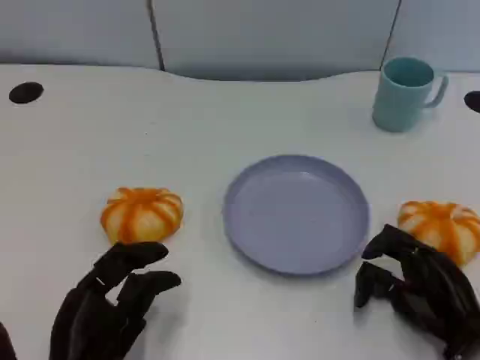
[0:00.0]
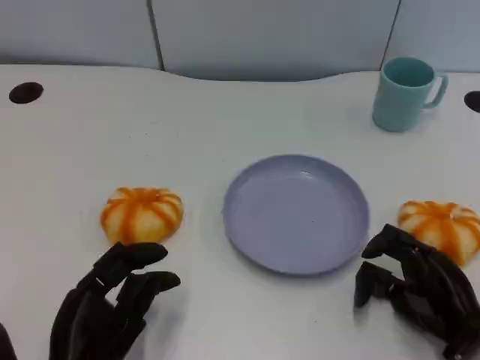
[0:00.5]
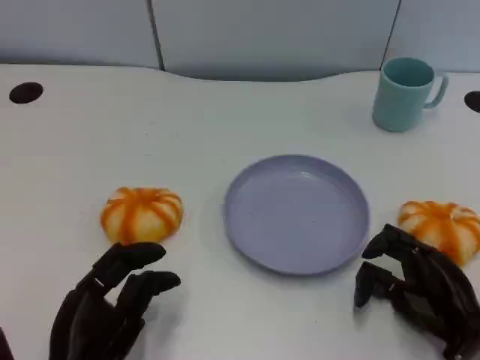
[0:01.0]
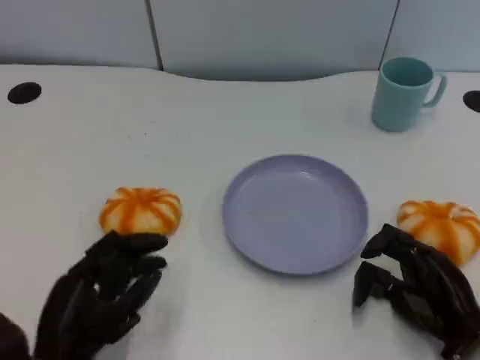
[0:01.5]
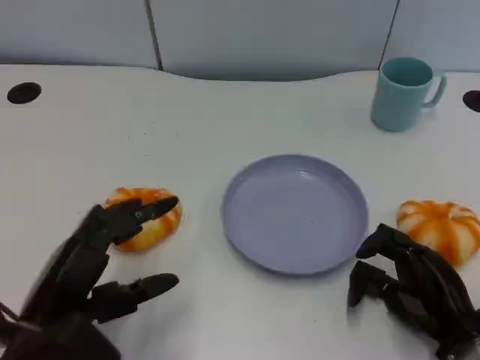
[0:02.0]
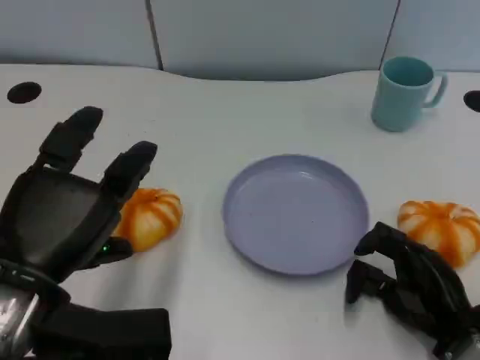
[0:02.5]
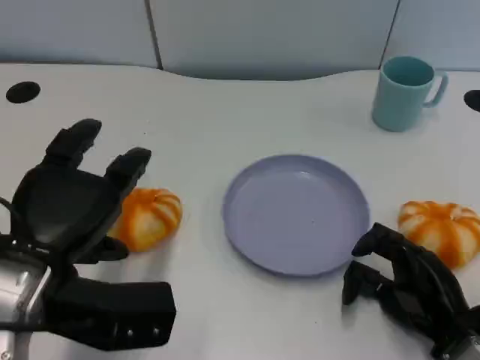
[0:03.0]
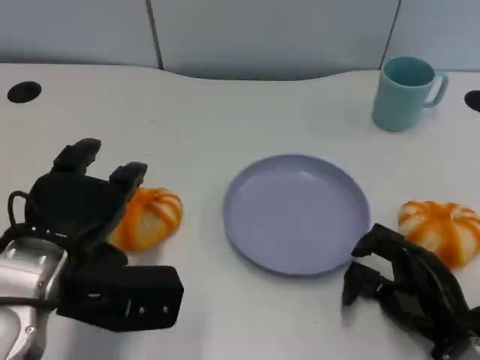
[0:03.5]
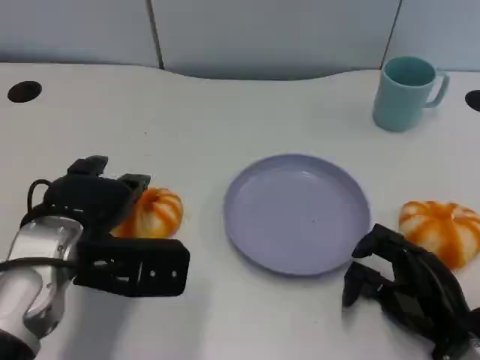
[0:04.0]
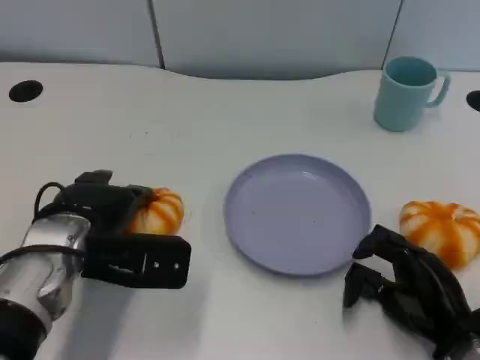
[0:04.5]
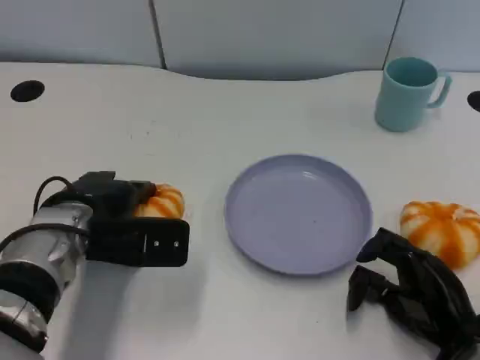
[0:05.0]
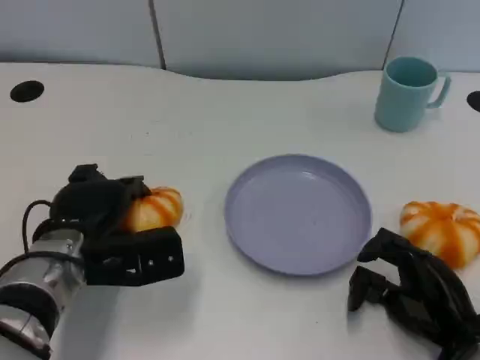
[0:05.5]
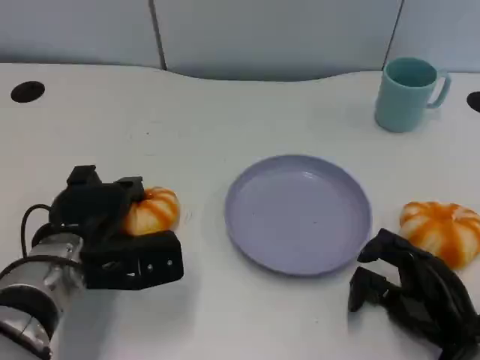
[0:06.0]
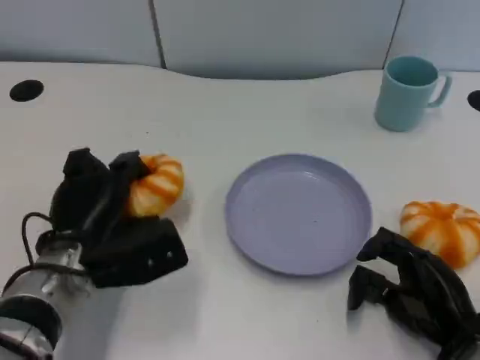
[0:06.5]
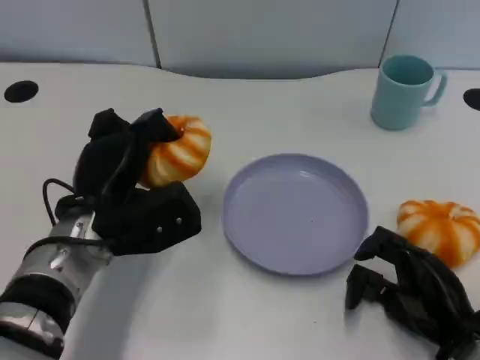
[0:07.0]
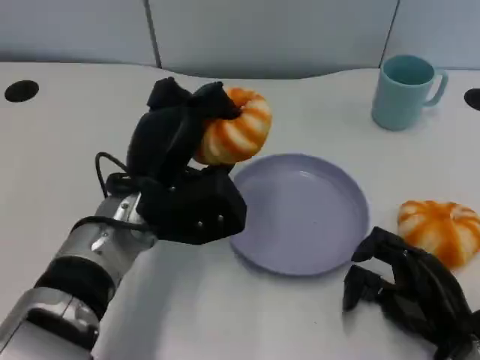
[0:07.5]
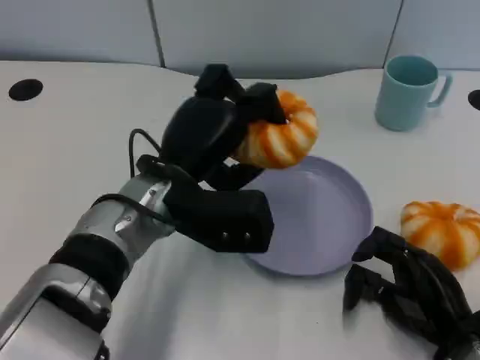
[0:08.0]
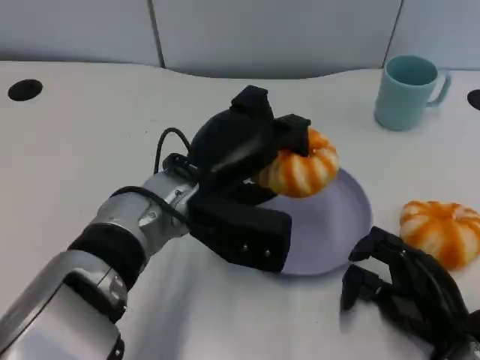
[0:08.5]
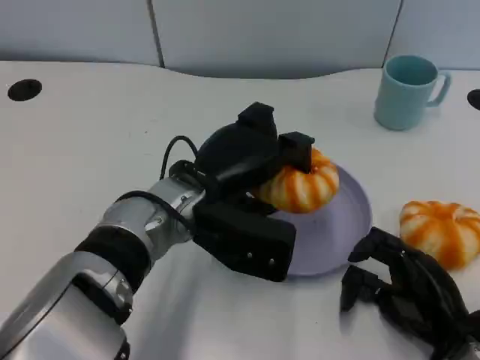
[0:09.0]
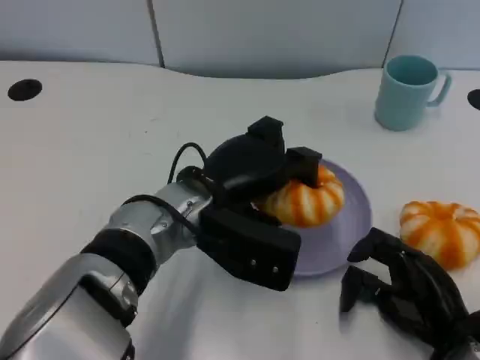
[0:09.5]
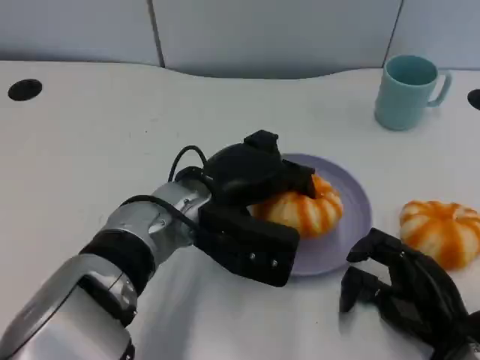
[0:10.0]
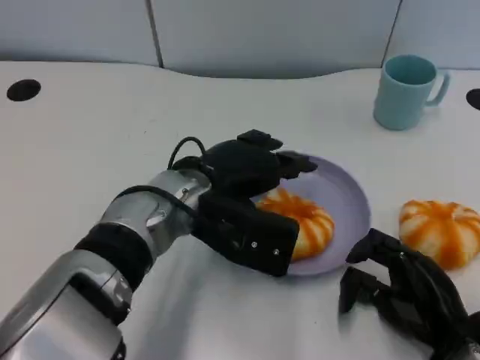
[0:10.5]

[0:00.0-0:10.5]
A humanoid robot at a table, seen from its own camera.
Task of the whole recording: Grasp the bread from the table and place it into the plate.
0:00.0 to 0:02.0: The left hand is displaced upward by about 5 cm.
0:02.0 to 0:04.0: The left hand shifts roughly 10 cm forward.
0:04.0 to 0:06.5: The left hand is displaced downward by approximately 5 cm.
0:06.5 to 0:08.5: The left hand shifts some 15 cm to the right and upward.

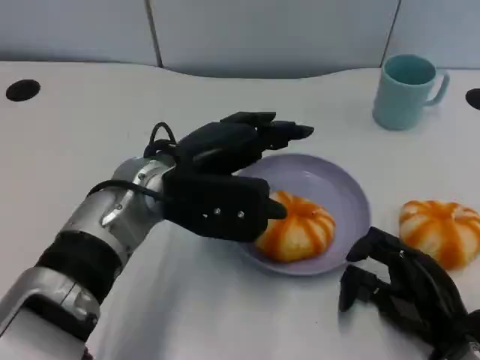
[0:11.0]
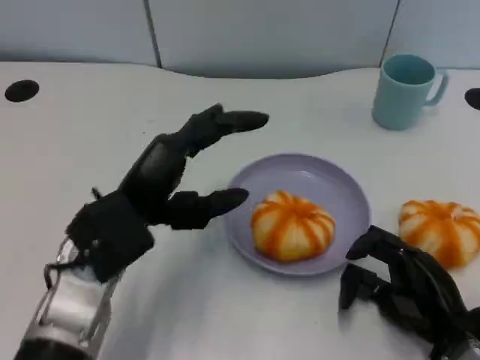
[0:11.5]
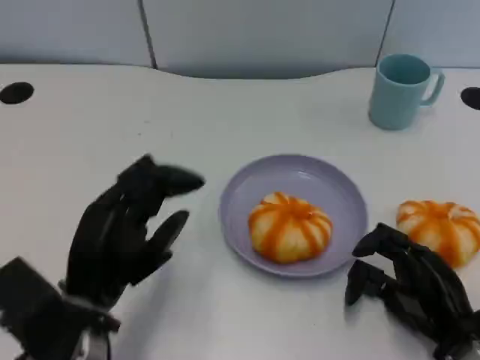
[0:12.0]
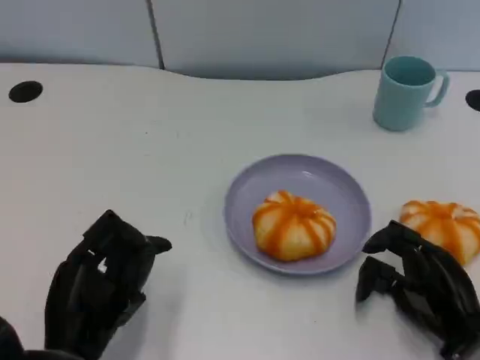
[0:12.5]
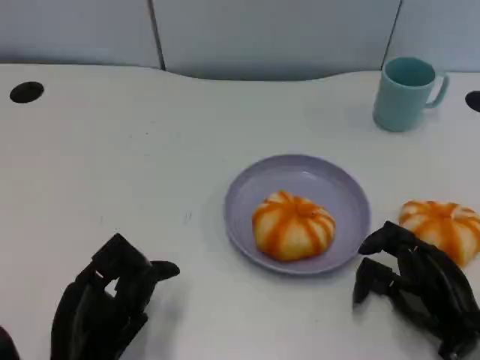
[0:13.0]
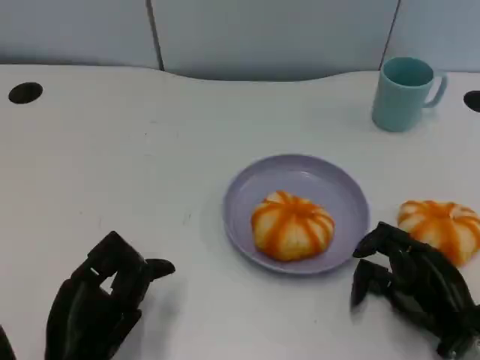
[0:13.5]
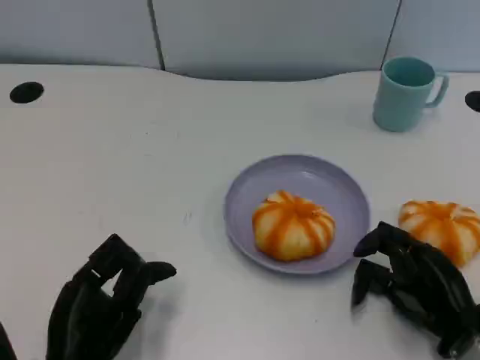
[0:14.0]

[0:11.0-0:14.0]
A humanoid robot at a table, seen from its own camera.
Task of the whole recording: Grasp the bread from the table and place it into the plate.
0:11.0 to 0:12.5: The left hand travels backward, downward and to the left by some 20 cm.
0:12.5 to 0:14.0: The hands make only small movements.

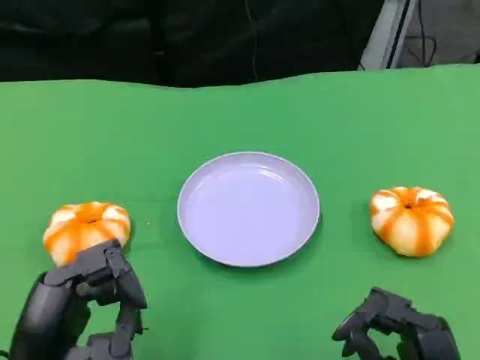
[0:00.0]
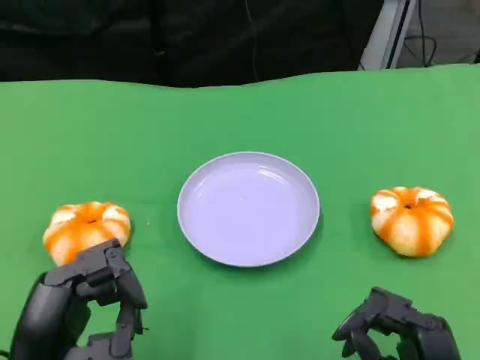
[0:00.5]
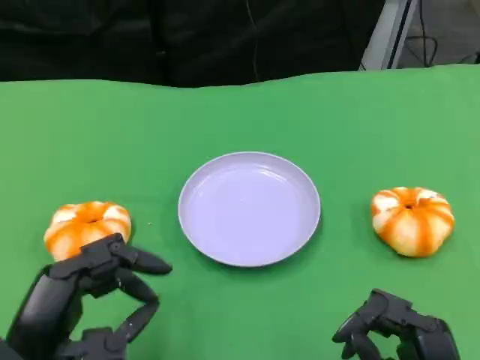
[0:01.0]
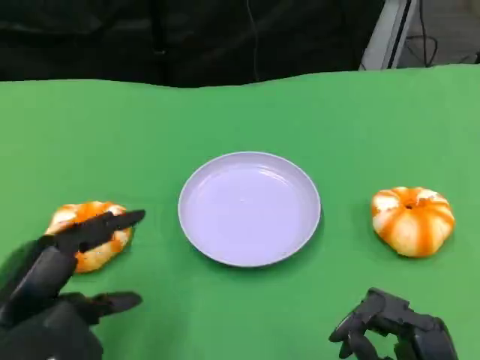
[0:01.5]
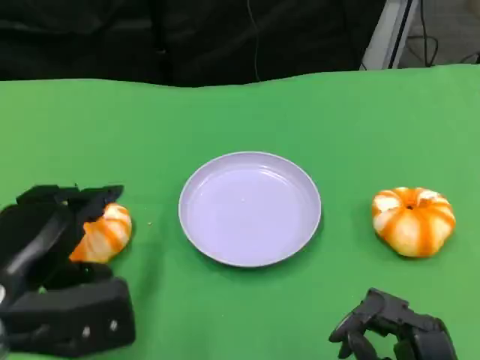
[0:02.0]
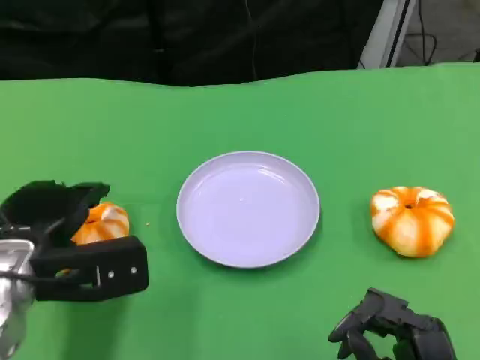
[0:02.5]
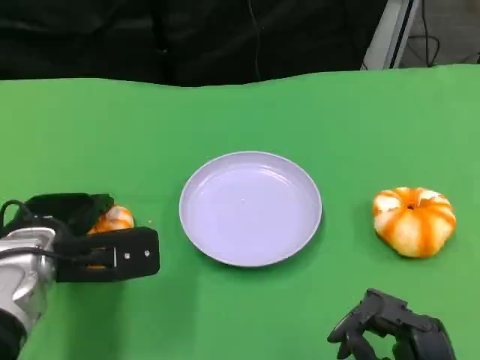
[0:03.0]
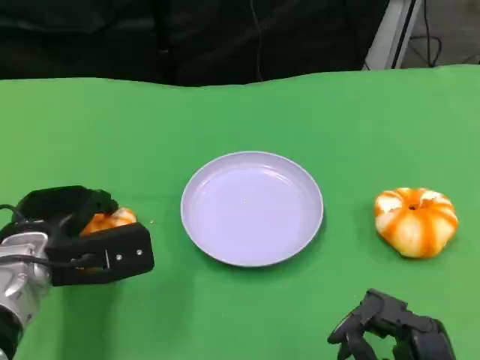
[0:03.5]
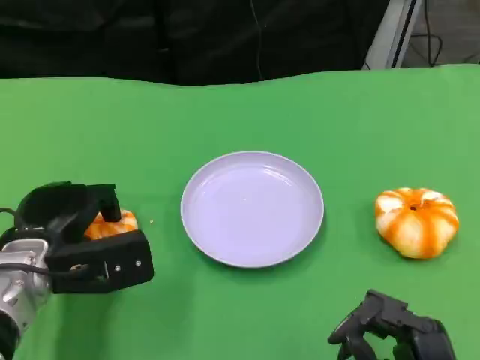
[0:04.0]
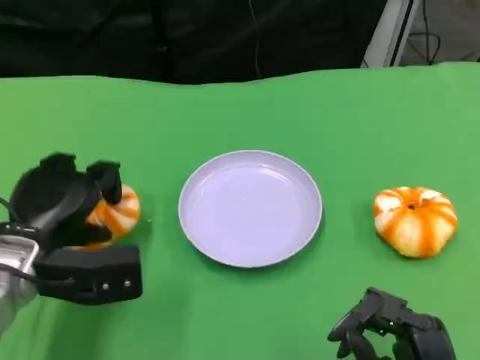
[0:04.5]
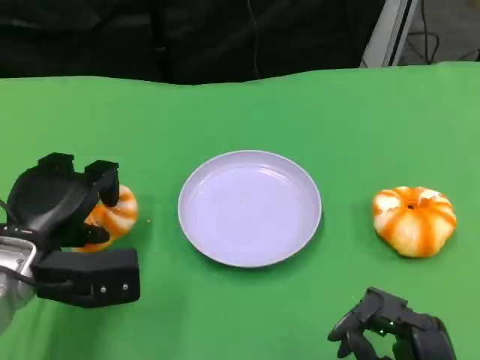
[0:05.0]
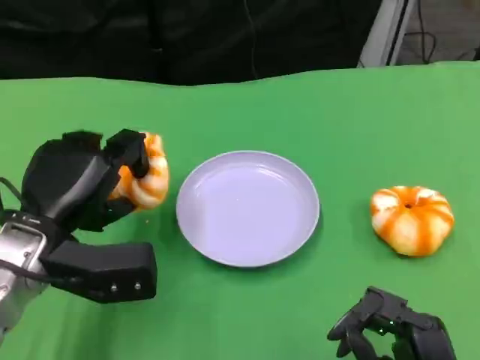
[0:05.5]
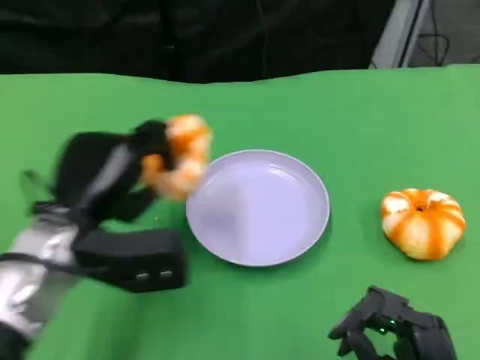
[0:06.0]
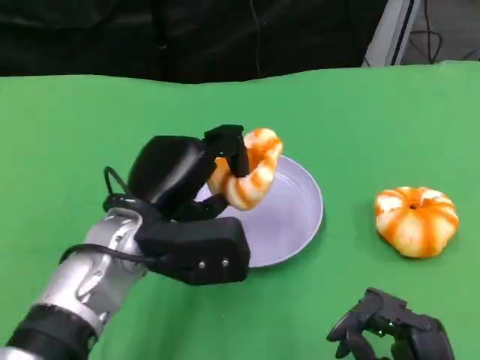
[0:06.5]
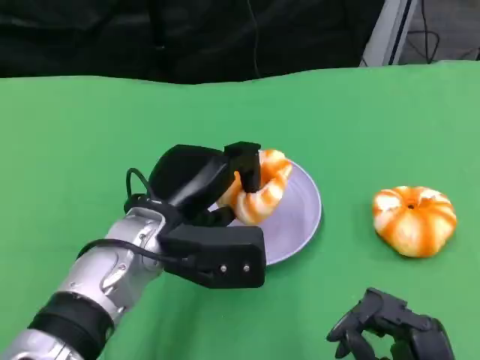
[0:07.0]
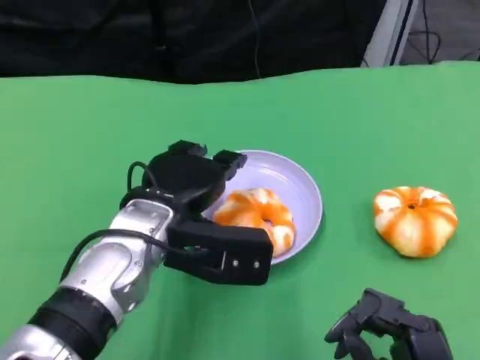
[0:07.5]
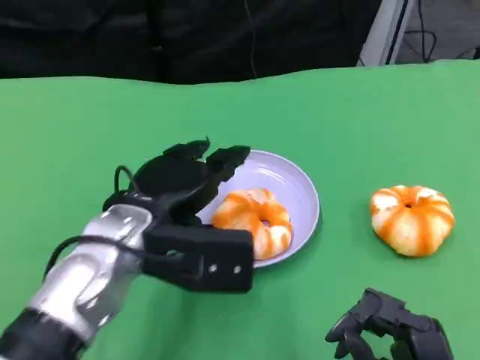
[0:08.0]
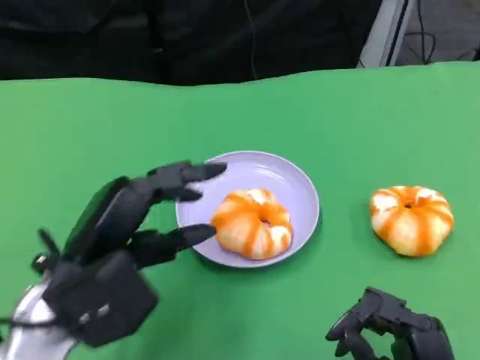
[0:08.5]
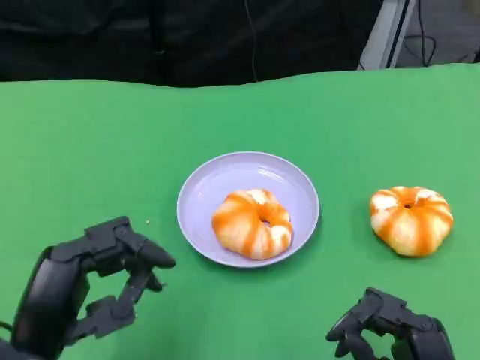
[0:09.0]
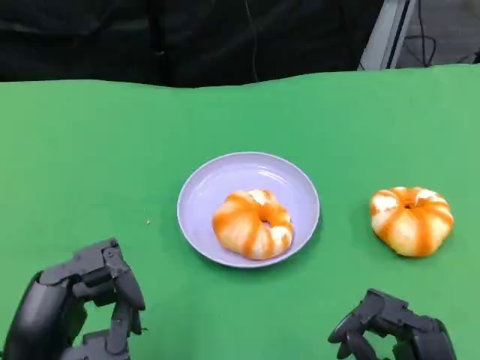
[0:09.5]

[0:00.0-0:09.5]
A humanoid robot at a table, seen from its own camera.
Task of the whole recording: Grasp the bread from the table and place it into the plate.
0:00.0 to 0:02.0: The left hand heads forward, covering about 5 cm.
0:02.0 to 0:04.0: The left hand shifts some 10 cm forward and downward.
0:05.5 to 0:07.5: The left hand is displaced to the right by roughly 10 cm.
0:07.5 to 0:09.5: The left hand is displaced backward and to the left by roughly 20 cm.

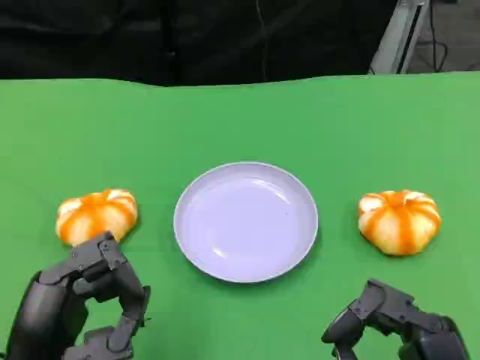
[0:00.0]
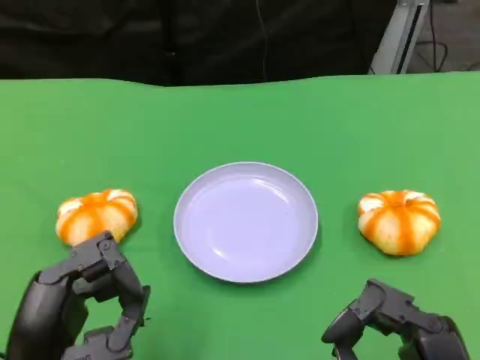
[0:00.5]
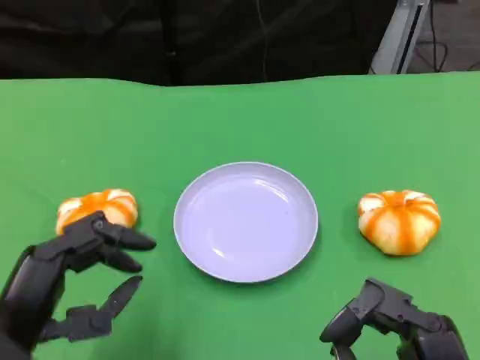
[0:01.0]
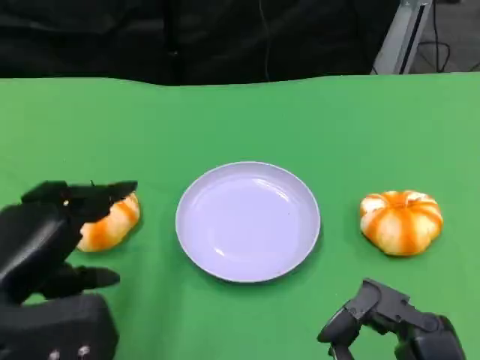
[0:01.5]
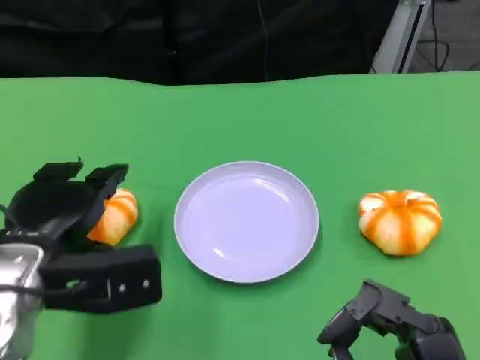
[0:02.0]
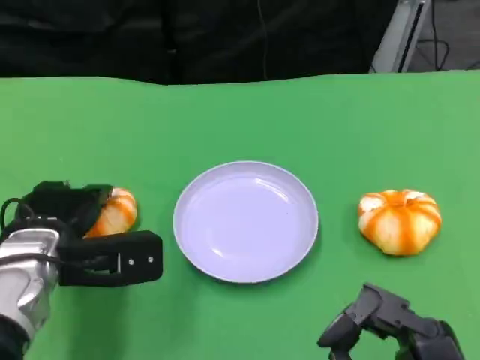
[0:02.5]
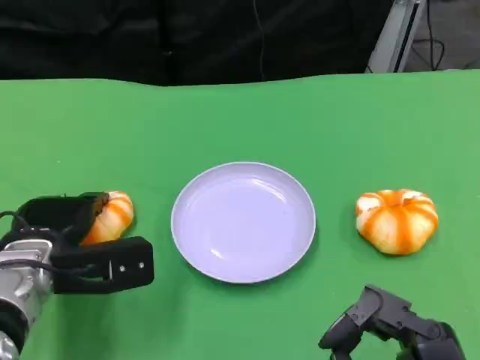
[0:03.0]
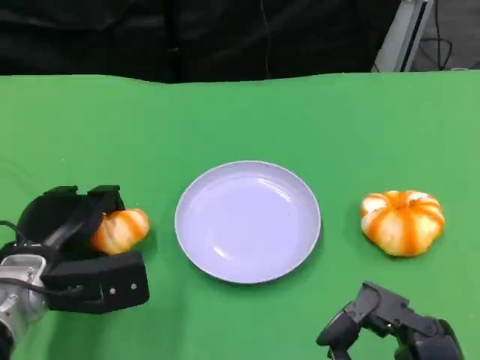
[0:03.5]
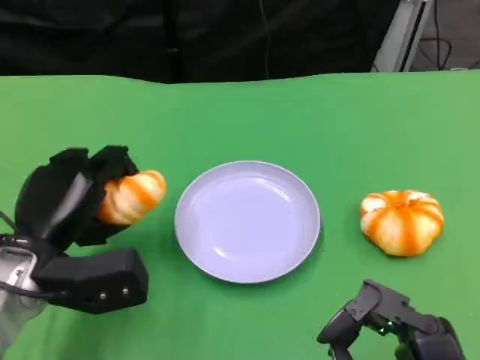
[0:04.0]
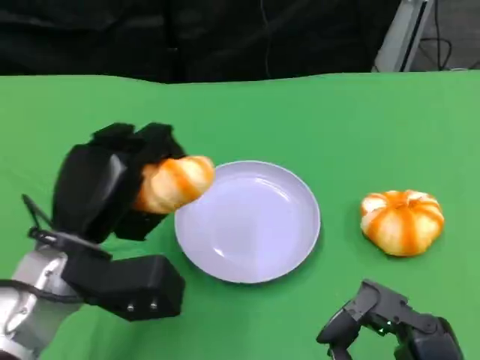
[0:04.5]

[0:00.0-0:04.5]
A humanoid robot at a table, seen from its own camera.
Task of the whole recording: Grasp the bread from the table and place it into the plate.
0:00.0 to 0:02.0: The left hand heads forward, covering roughly 10 cm.
